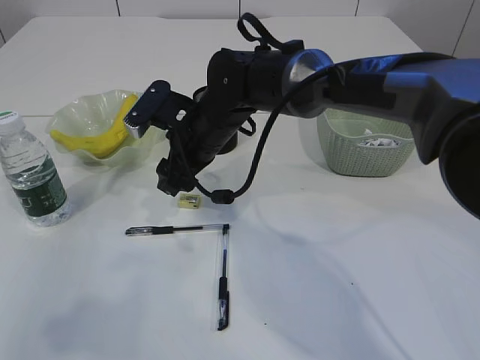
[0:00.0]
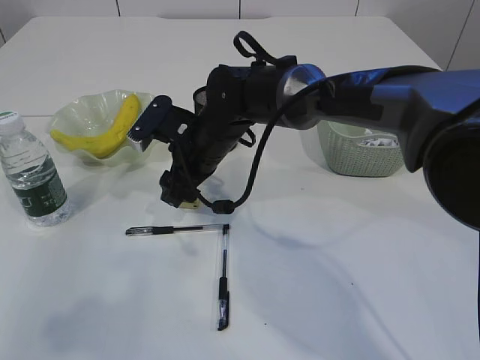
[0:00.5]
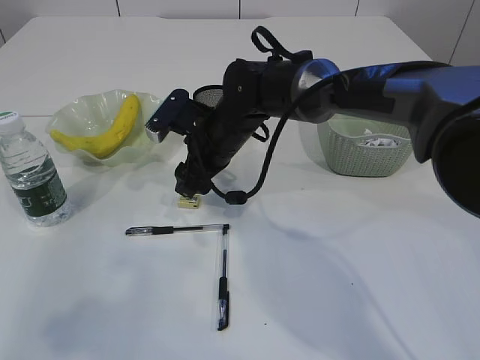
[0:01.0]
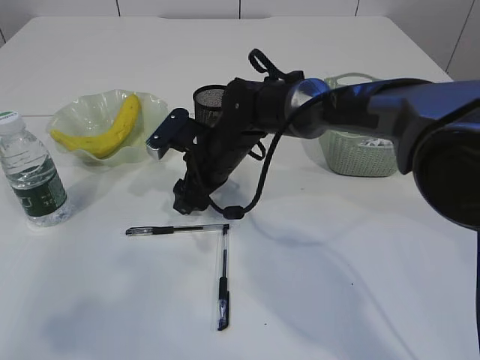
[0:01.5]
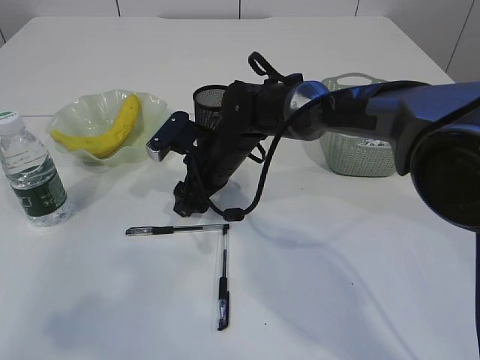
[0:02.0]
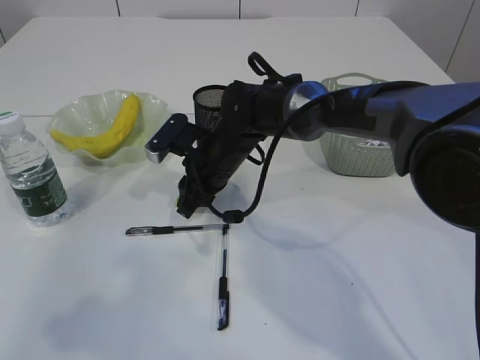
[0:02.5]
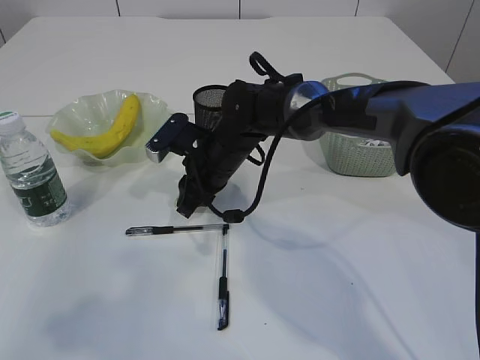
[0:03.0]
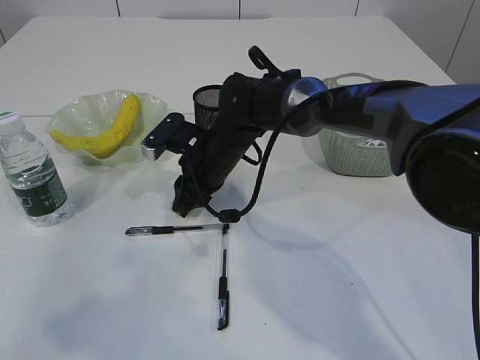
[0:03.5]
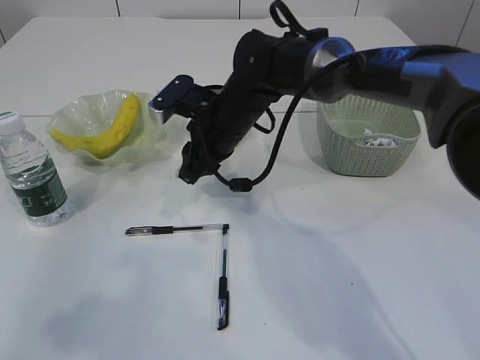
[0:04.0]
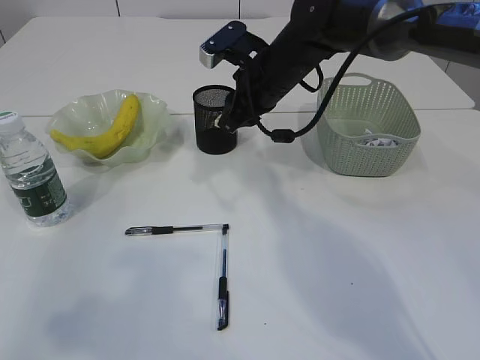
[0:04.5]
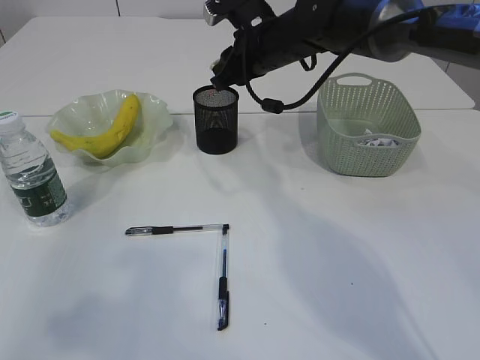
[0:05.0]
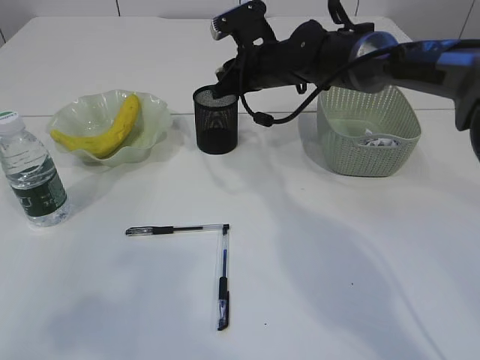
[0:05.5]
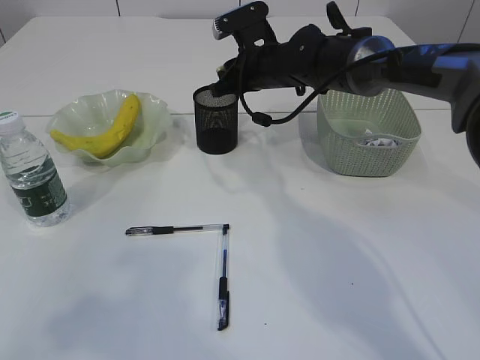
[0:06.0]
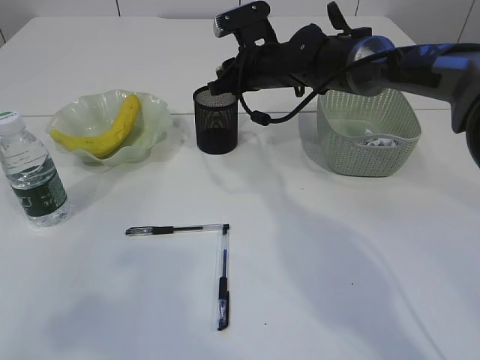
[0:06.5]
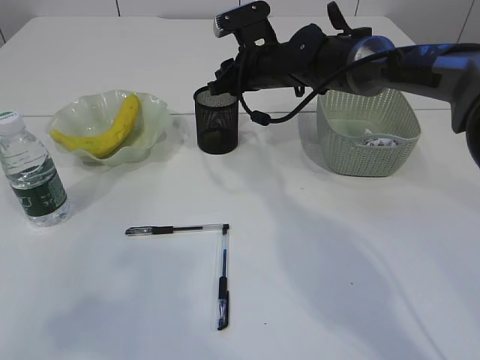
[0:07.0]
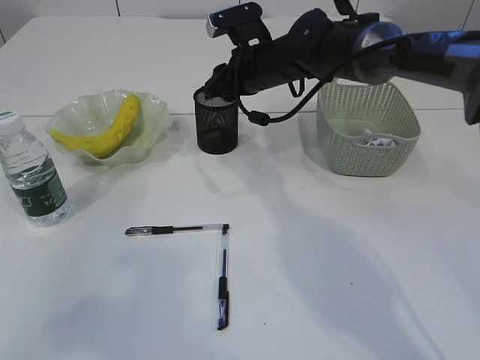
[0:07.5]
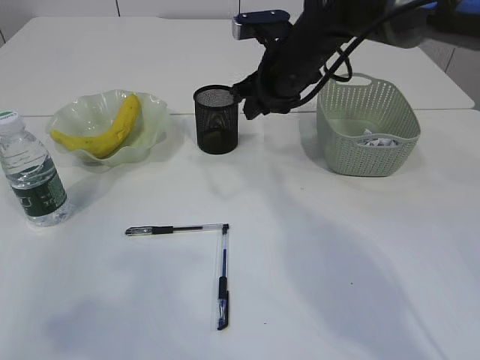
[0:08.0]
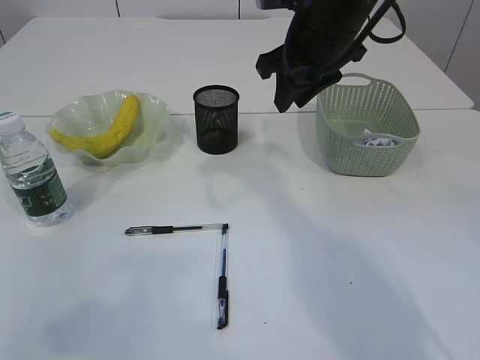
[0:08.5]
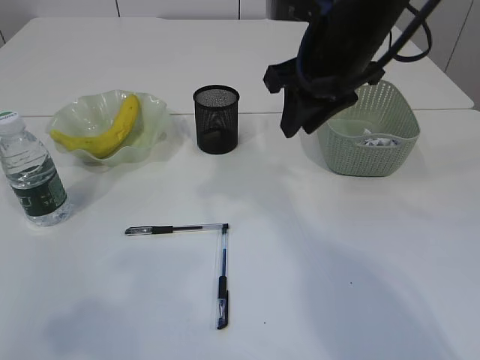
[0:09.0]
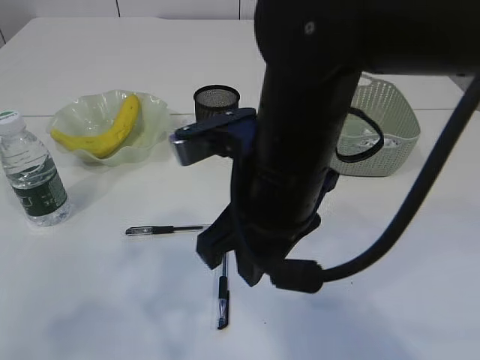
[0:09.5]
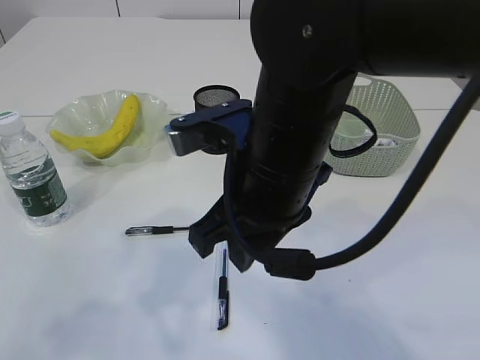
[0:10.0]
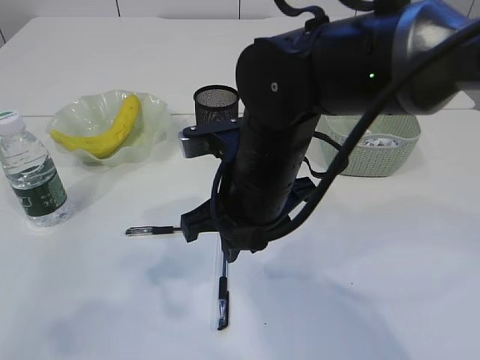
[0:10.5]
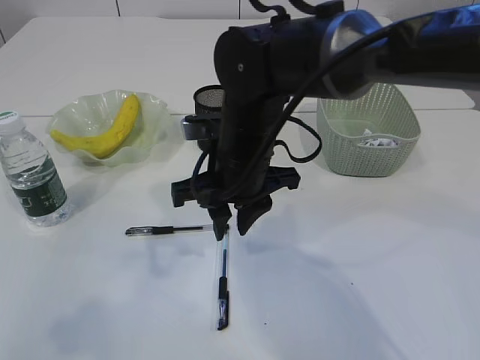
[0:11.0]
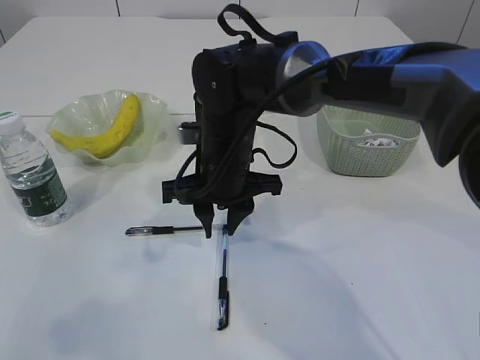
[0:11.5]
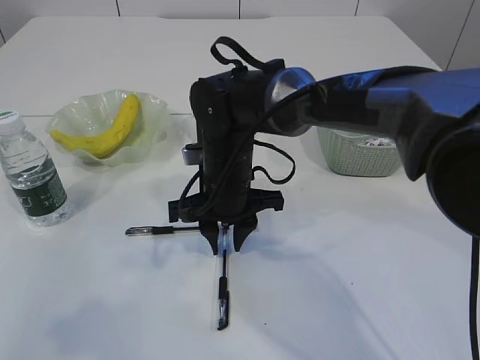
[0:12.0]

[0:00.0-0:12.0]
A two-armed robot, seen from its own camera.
Step, 0:00.0 to 0:04.0: Pick up the eraser.
Step, 0:04.5 to 0:07.5: Place the eraser into the pen holder.
0:00.0 to 0:02.0: The right gripper shifts roughly 5 cm downward.
0:02.0 to 0:04.0: The right gripper heads upward, covering about 5 cm, and closes its fingers.
0:04.0 to 0:06.0: The right gripper is displaced forward and to the right by about 10 cm.
0:06.0 to 0:08.0: The right gripper ends up approximately 5 cm from where it was.
0:08.0 to 0:10.0: The right gripper travels backward by approximately 20 cm.
0:10.0 to 0:12.0: The right gripper shifts roughly 15 cm downward and forward.

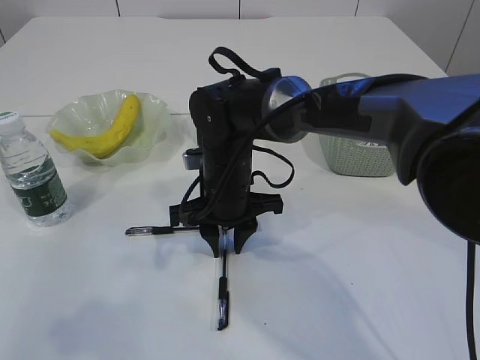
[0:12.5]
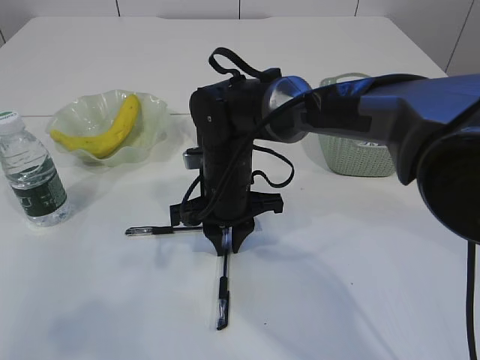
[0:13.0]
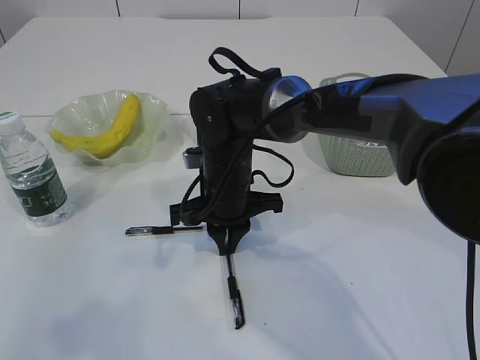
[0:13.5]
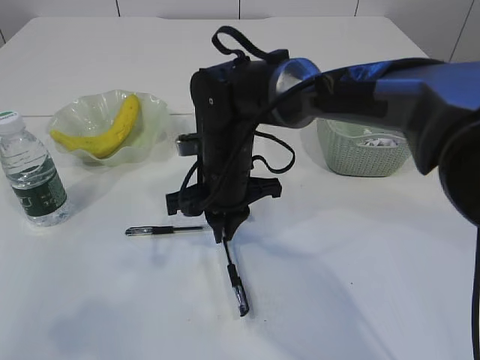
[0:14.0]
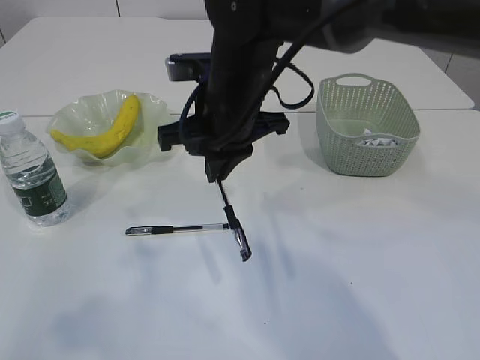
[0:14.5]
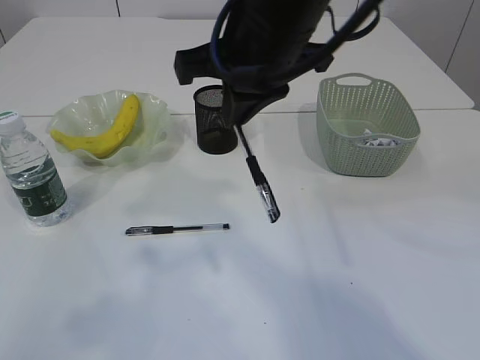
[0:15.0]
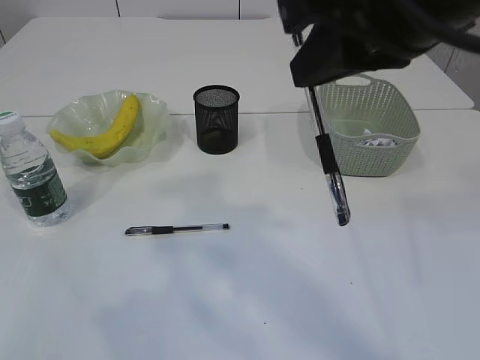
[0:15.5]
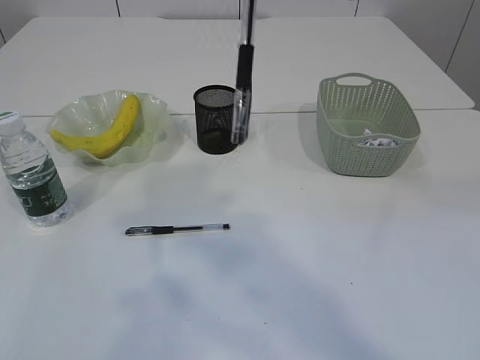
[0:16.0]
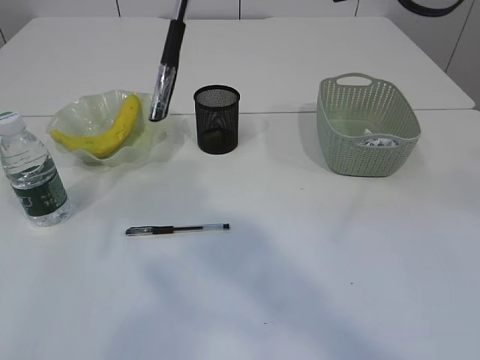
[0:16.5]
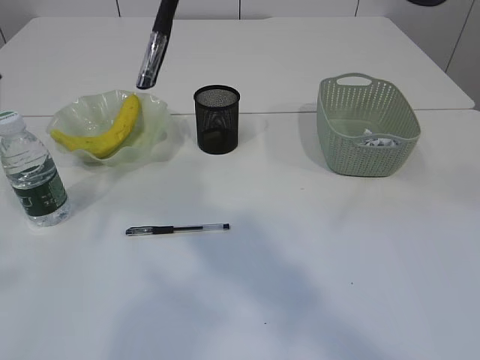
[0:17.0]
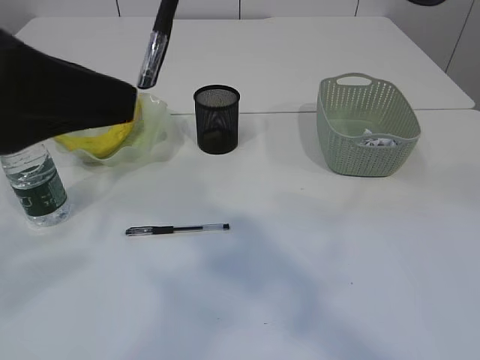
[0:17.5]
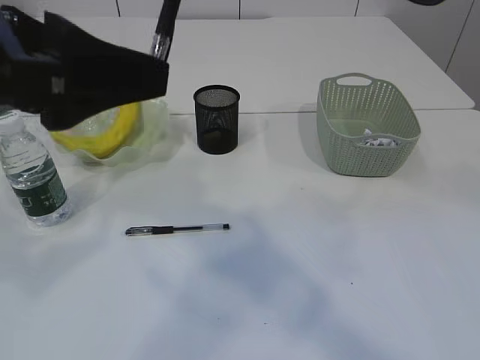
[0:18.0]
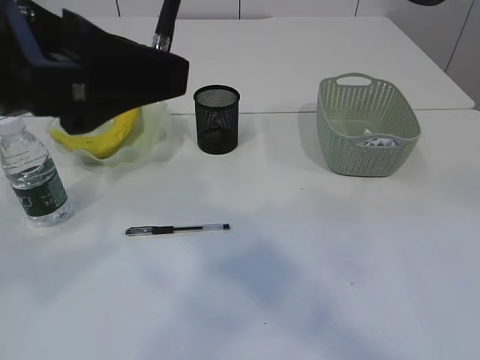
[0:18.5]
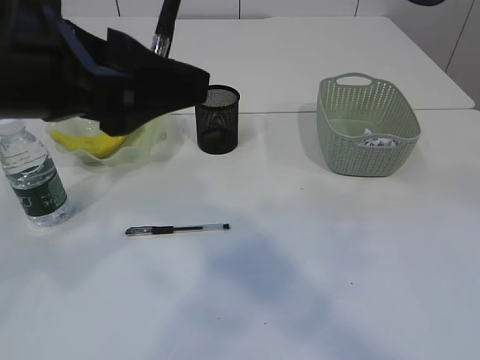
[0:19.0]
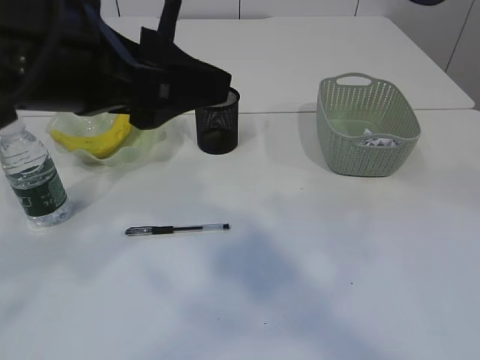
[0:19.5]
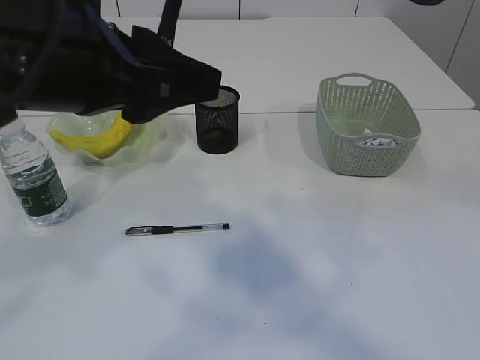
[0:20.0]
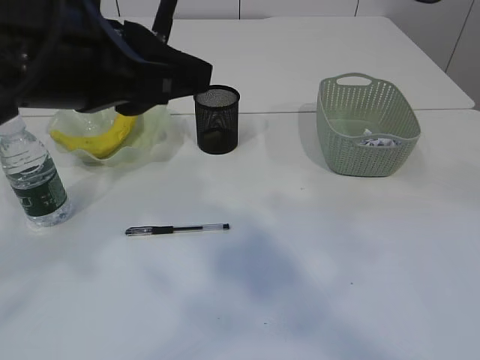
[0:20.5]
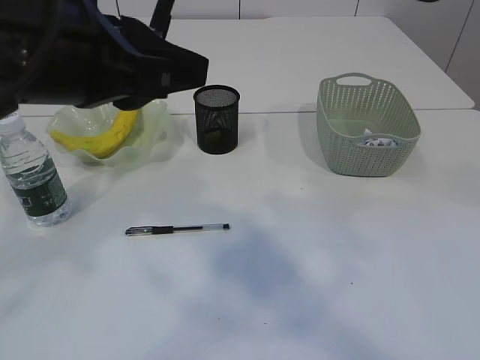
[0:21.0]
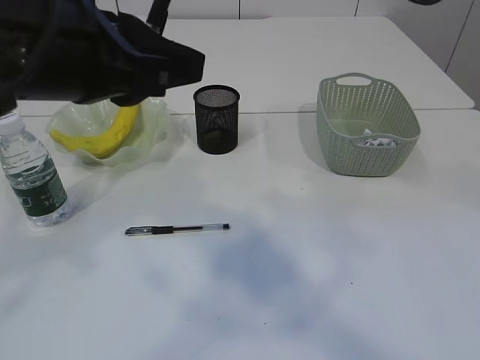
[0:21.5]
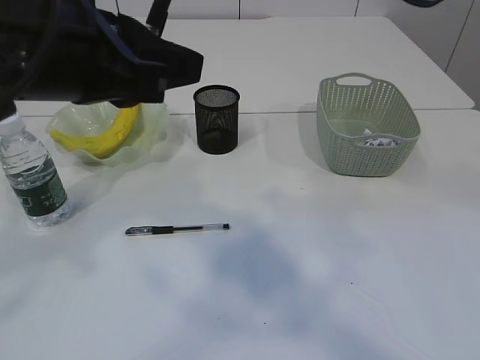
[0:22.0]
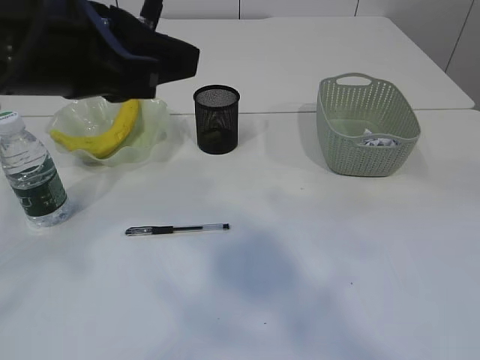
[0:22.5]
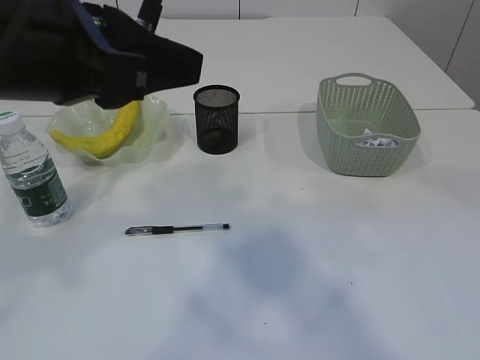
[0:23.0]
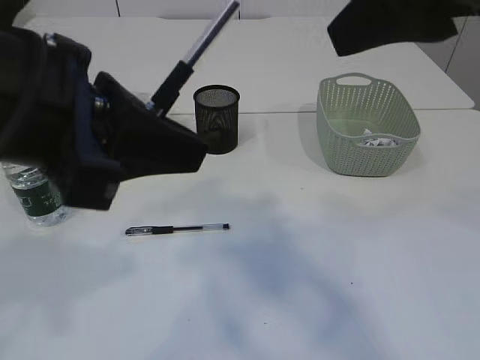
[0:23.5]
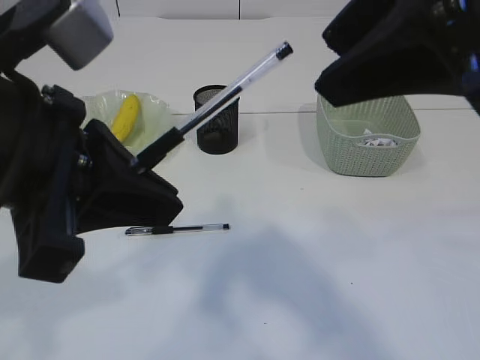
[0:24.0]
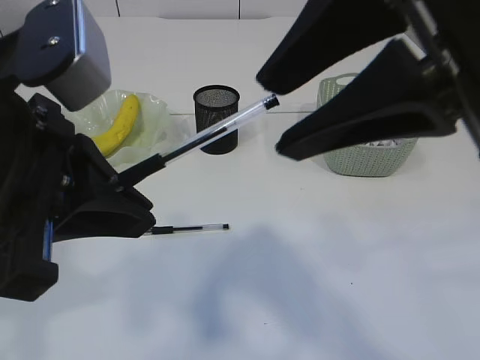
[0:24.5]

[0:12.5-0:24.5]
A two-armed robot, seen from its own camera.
Step, 0:14.5 to 0:23.5: transfer the pen to the left arm.
0:12.5 to 0:14.5: The right gripper shifts about 10 cm upward, and closes.
0:14.5 to 0:16.5: The right gripper heads upward, backward and to the right, covering roughly 25 cm.
0:16.5 to 0:18.5: The left gripper moves to the right and forward, approximately 10 cm.
0:18.5 to 0:20.5: The left gripper closes up.
0:20.5 to 0:22.5: The right gripper opens up.
0:22.5 to 0:24.5: The right gripper moves backward, some 5 cm.

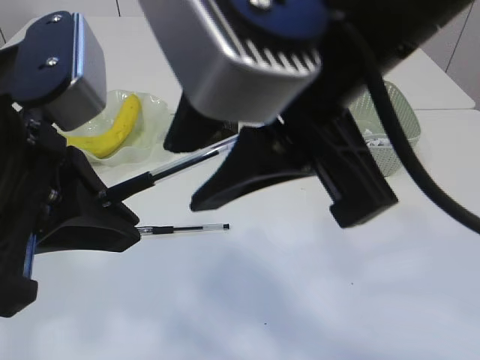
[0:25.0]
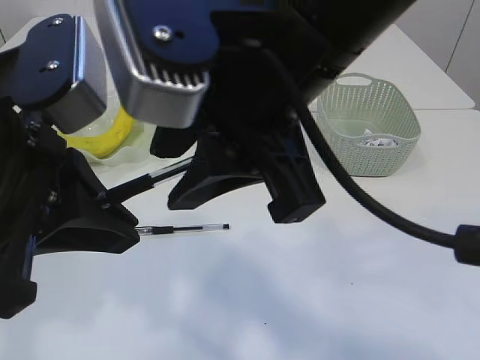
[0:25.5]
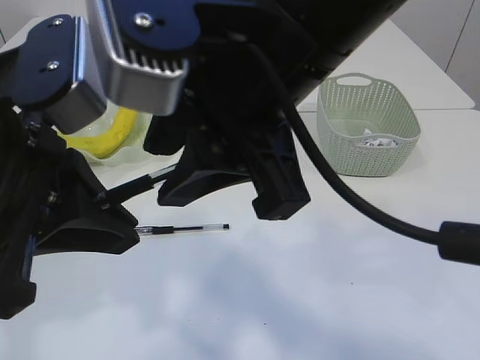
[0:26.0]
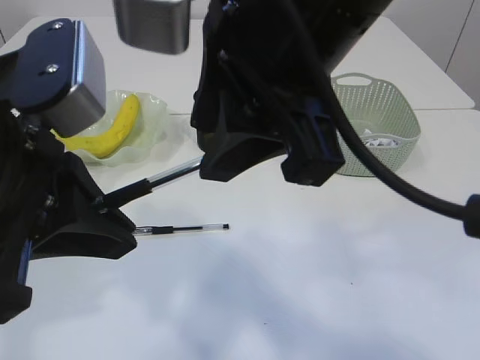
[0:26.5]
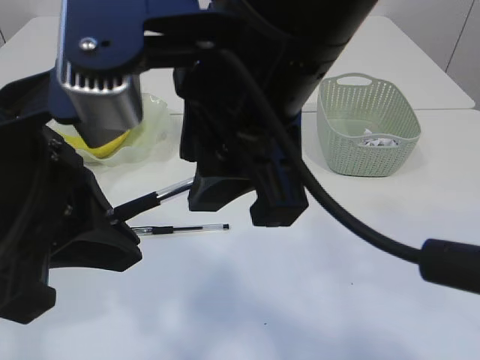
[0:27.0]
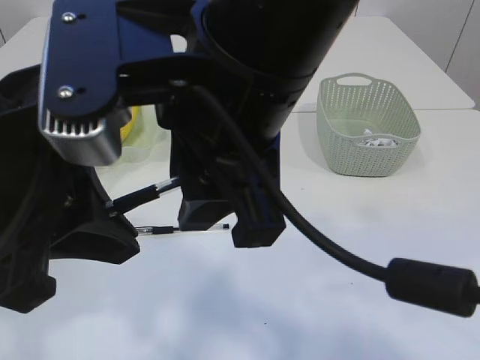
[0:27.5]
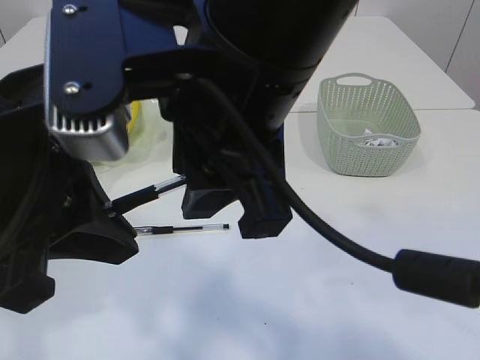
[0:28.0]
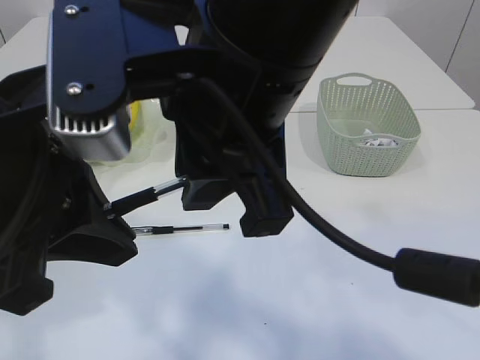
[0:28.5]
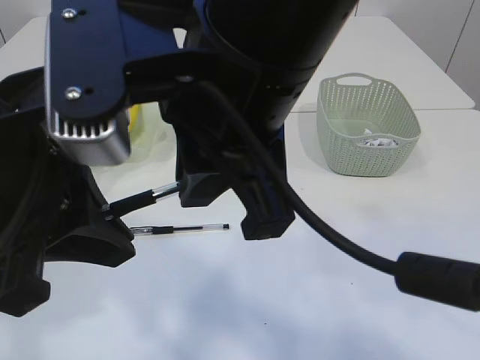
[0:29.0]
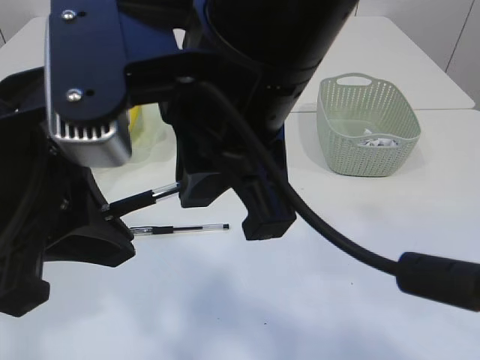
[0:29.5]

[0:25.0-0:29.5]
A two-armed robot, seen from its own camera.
0:27.0 to 0:29.5: The right gripper closes its fingers.
